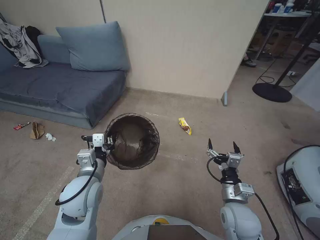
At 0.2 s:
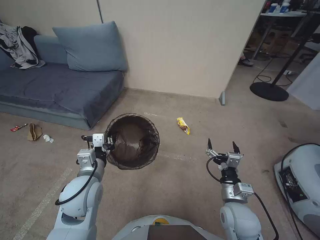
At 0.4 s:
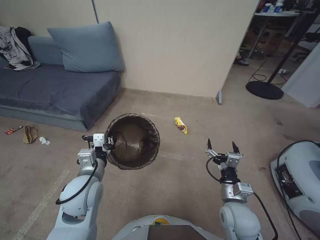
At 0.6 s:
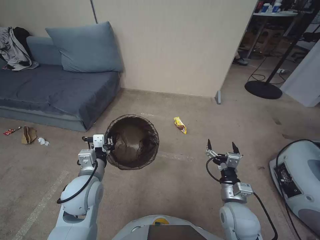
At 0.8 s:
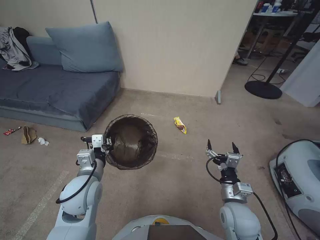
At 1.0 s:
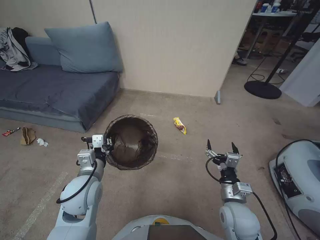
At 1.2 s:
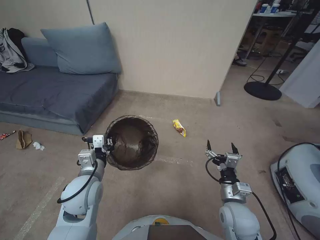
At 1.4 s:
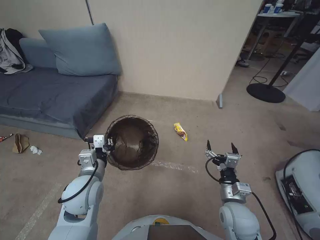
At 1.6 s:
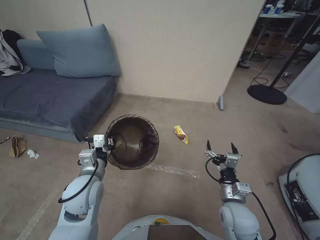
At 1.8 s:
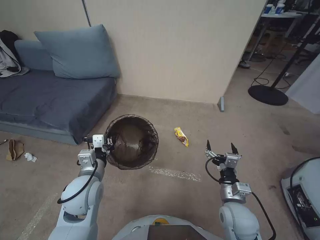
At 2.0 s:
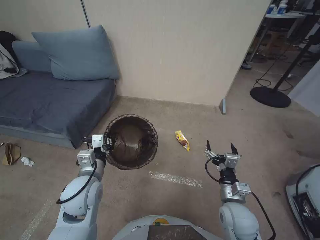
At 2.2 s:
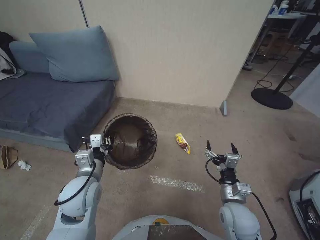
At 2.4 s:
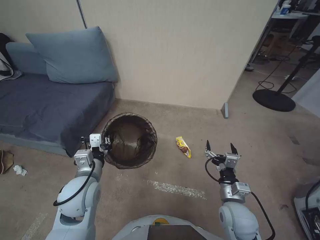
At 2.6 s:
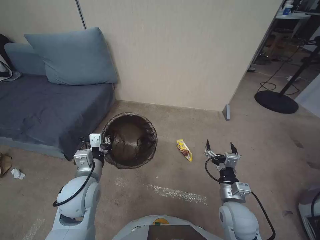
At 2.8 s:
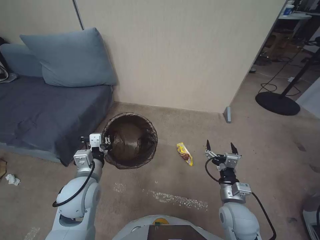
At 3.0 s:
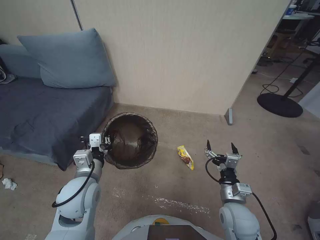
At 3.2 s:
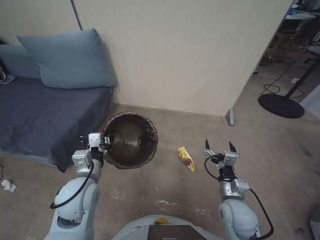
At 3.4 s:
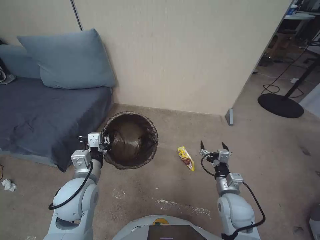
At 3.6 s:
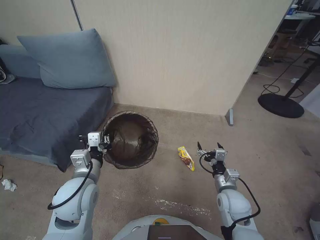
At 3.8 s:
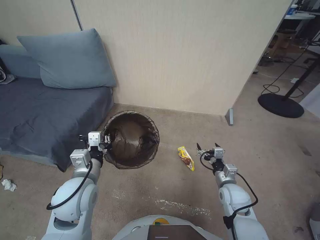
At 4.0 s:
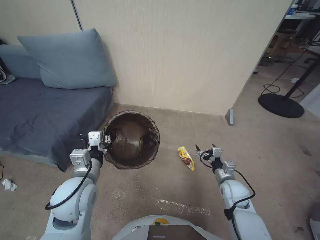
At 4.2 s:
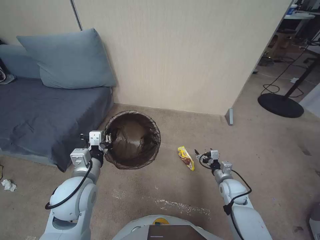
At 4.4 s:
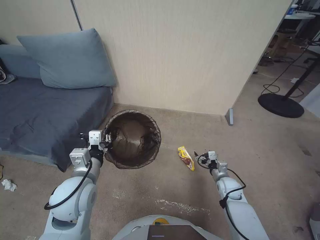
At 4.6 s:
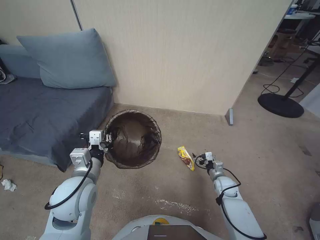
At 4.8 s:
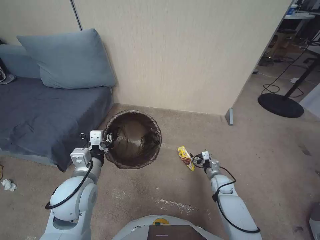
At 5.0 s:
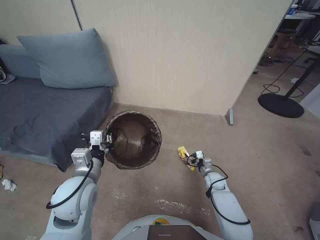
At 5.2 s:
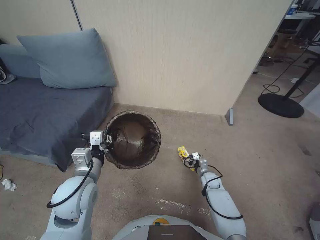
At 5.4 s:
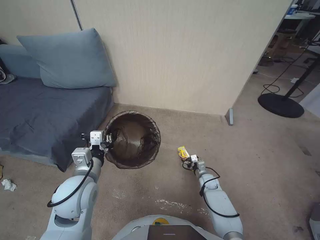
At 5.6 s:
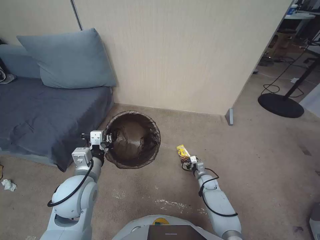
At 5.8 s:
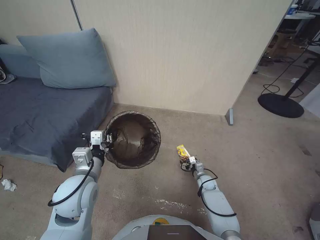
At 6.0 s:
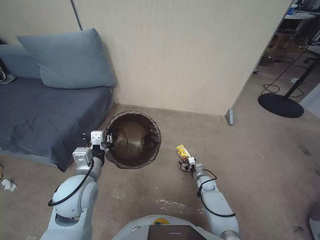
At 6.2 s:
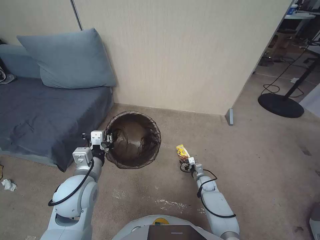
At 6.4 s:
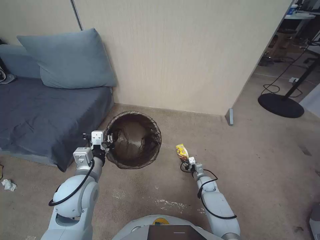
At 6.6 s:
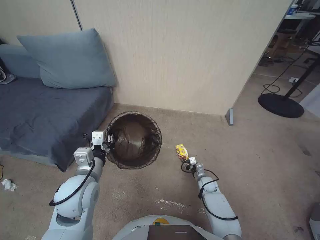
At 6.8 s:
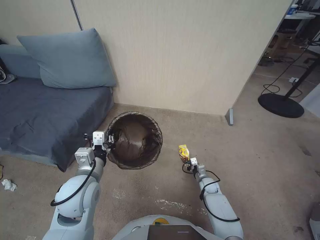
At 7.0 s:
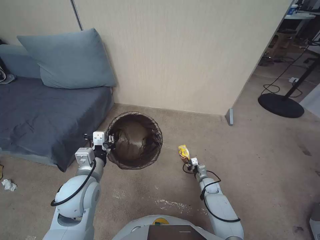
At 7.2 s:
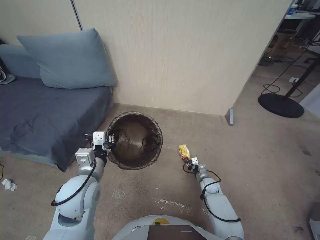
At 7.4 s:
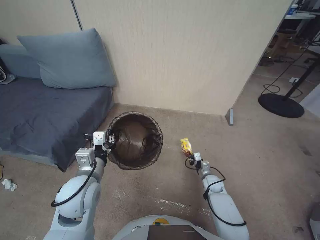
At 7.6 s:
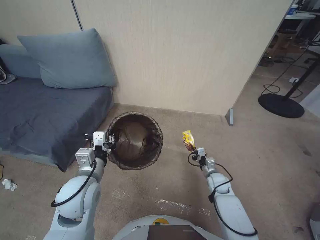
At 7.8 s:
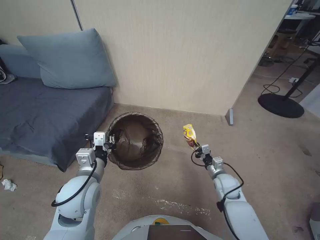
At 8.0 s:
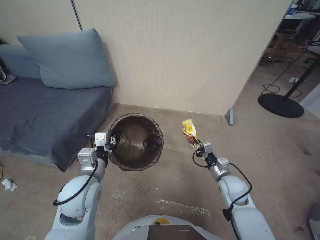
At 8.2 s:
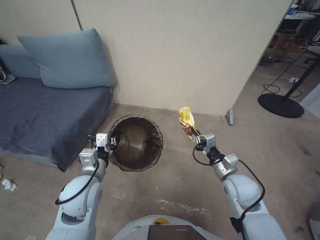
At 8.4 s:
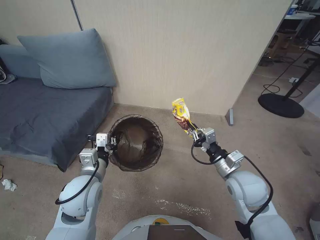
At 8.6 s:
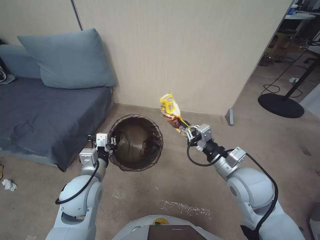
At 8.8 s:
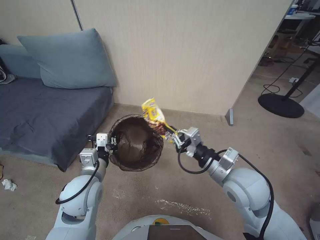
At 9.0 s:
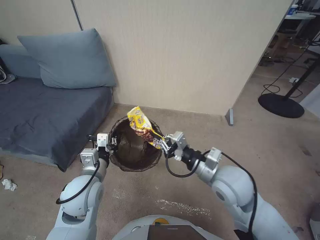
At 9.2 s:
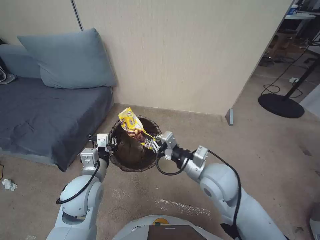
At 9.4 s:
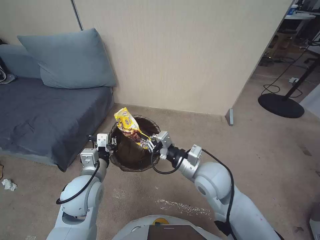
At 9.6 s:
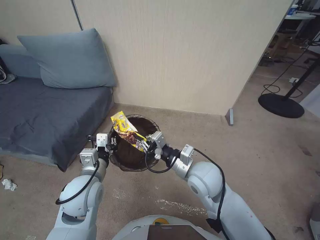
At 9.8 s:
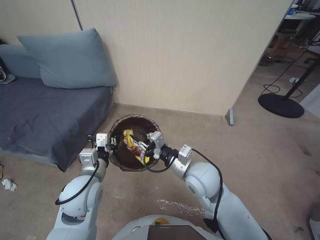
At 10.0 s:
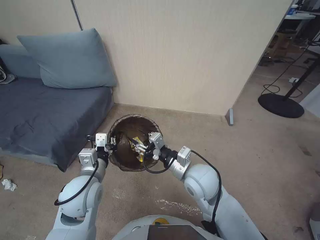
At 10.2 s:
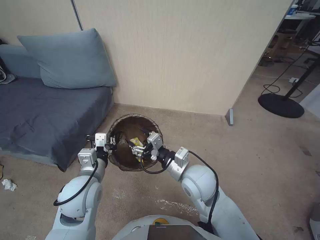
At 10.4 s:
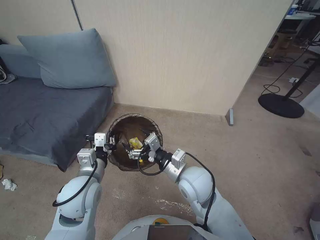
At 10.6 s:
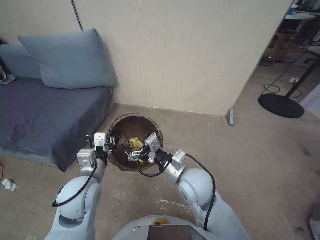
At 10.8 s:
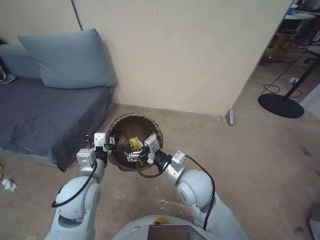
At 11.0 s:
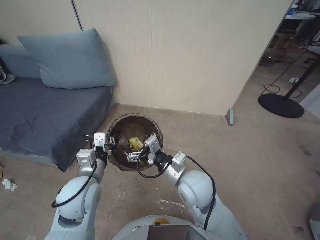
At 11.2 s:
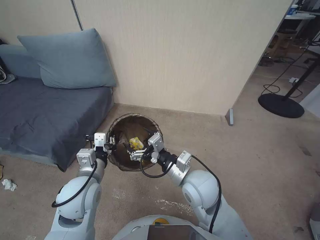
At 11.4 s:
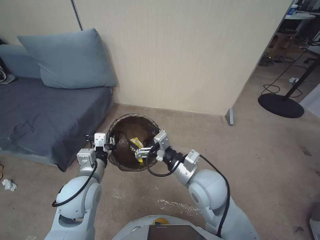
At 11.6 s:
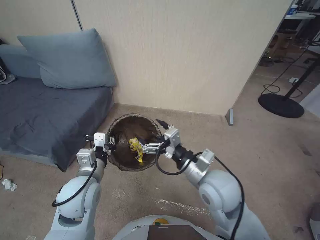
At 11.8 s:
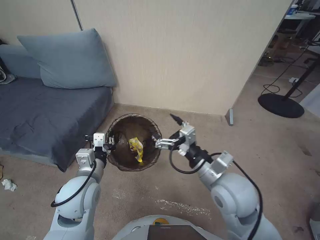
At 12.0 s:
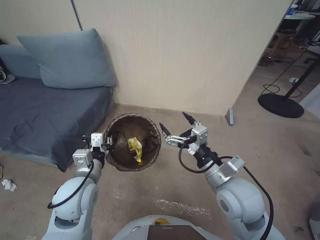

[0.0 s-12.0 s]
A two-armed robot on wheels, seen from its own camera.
Task of the whole recording: Pick up the trash bin, then pick up the garbage from the floor and place it into the trash bin.
0.0 to 1.6 s: The grippers stay close to where they were, moving slightly.
3.0 to 4.4 s: The right gripper is displaced downward, forward and to the right by some 20 cm.
4.4 to 6.0 s: The right gripper shifts some 15 cm downward, to the left and forward.
6.0 to 7.6 s: The right gripper moves upward, roughly 5 cm, and closes its fingers.
7.6 to 9.0 s: The right gripper shifts approximately 30 cm upward.
9.0 to 10.4 s: The right gripper heads to the left, covering roughly 10 cm, and opens its fingers.
10.4 to 12.0 s: The right gripper moves to the right, approximately 10 cm.

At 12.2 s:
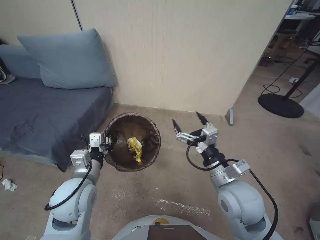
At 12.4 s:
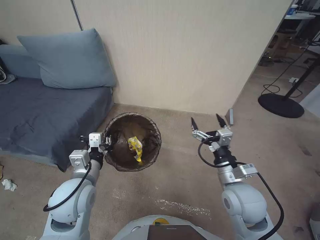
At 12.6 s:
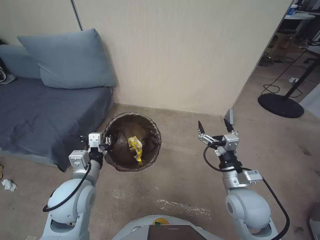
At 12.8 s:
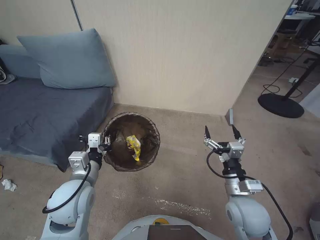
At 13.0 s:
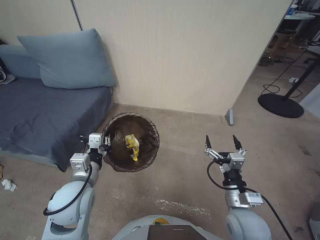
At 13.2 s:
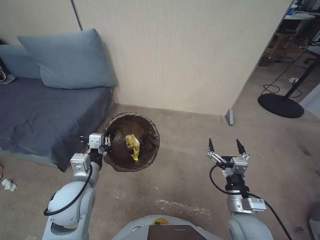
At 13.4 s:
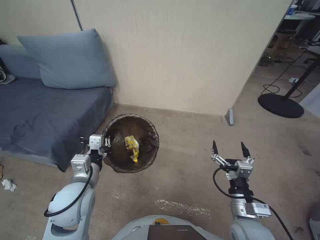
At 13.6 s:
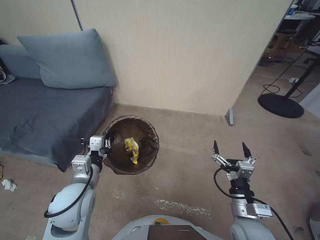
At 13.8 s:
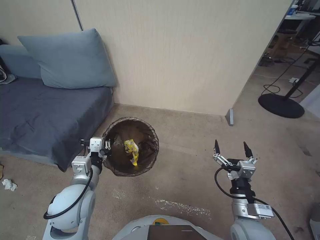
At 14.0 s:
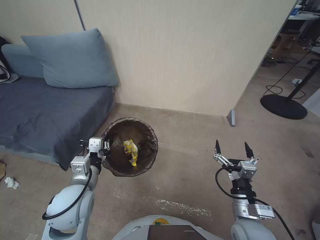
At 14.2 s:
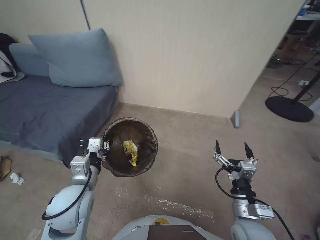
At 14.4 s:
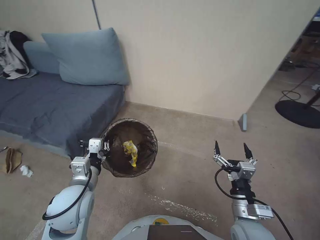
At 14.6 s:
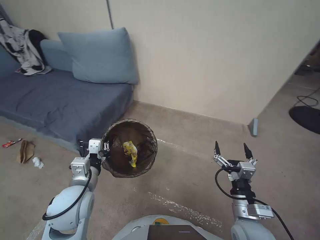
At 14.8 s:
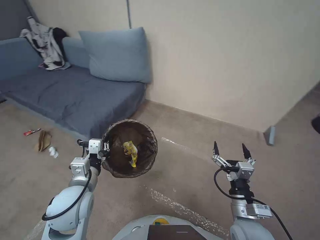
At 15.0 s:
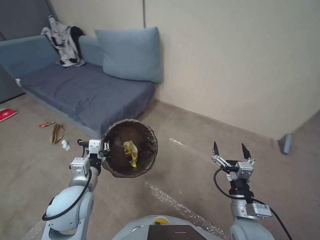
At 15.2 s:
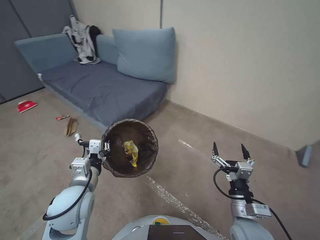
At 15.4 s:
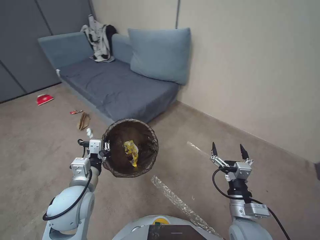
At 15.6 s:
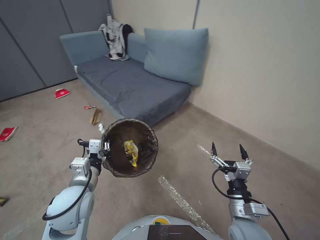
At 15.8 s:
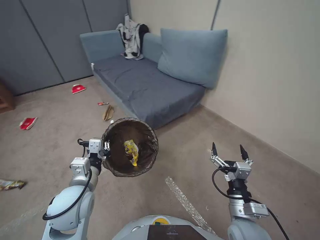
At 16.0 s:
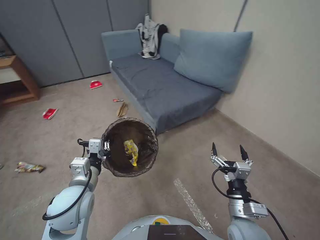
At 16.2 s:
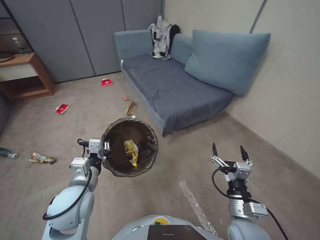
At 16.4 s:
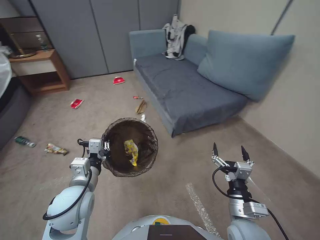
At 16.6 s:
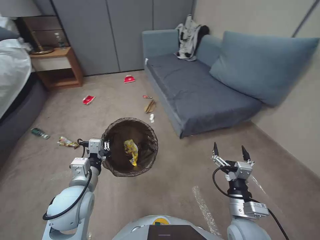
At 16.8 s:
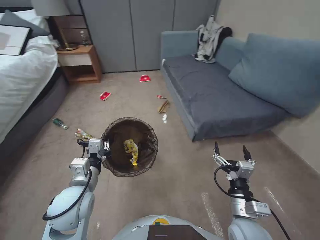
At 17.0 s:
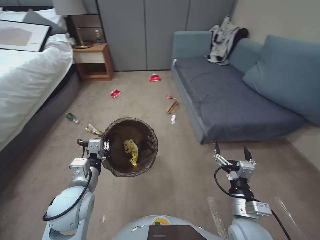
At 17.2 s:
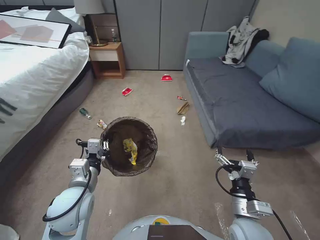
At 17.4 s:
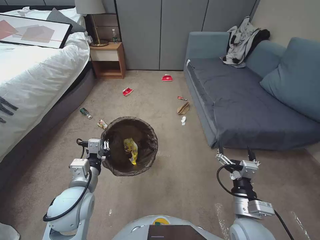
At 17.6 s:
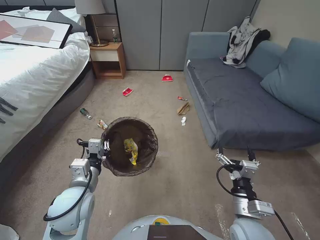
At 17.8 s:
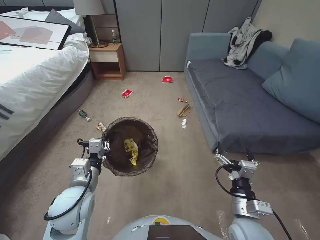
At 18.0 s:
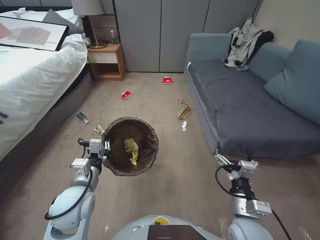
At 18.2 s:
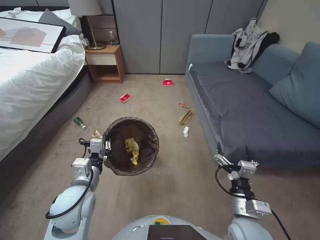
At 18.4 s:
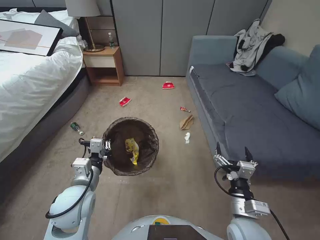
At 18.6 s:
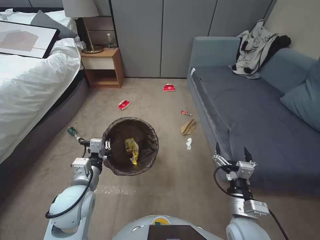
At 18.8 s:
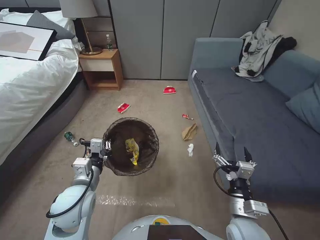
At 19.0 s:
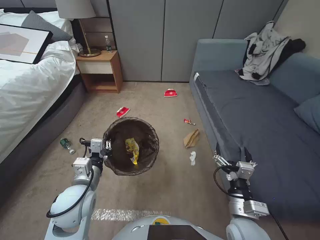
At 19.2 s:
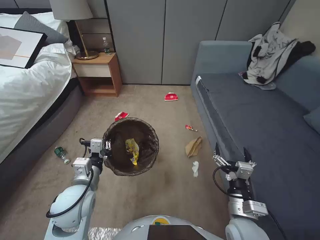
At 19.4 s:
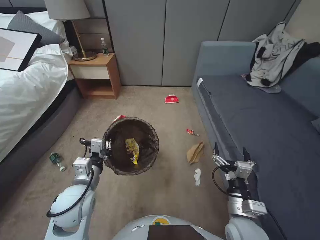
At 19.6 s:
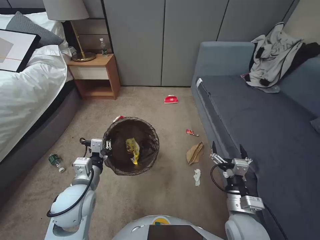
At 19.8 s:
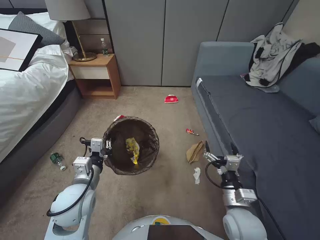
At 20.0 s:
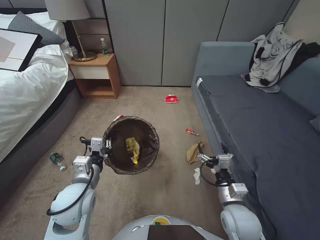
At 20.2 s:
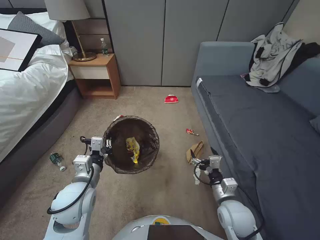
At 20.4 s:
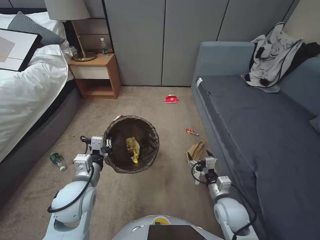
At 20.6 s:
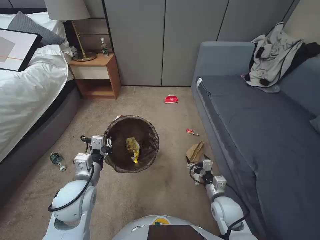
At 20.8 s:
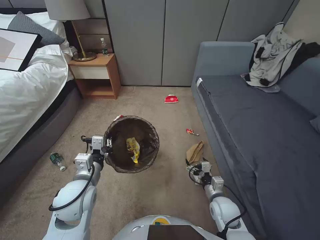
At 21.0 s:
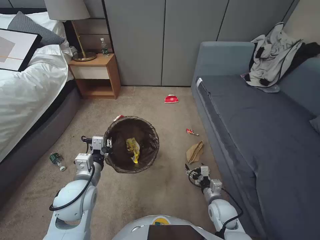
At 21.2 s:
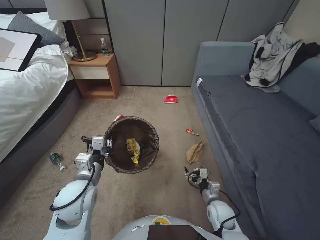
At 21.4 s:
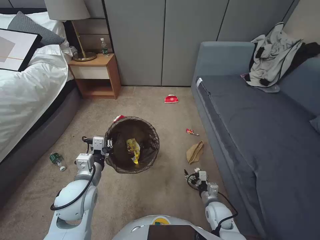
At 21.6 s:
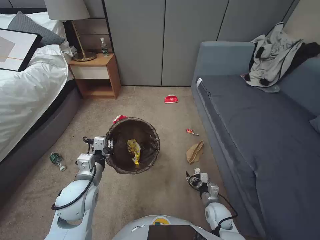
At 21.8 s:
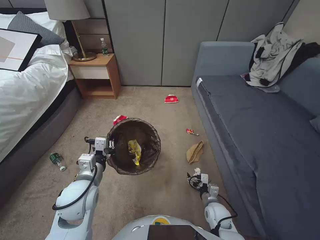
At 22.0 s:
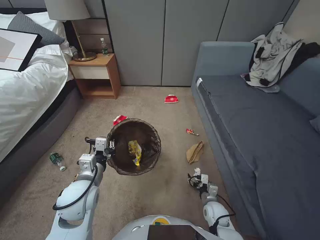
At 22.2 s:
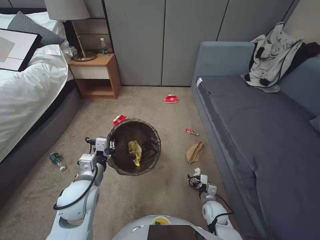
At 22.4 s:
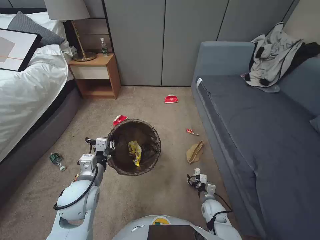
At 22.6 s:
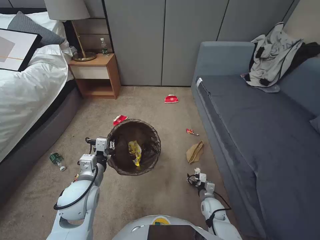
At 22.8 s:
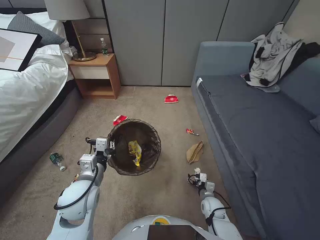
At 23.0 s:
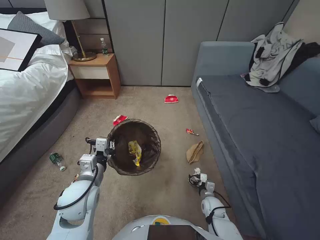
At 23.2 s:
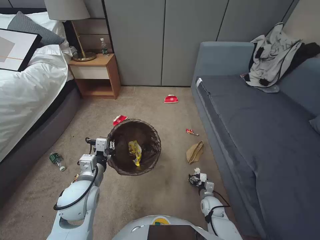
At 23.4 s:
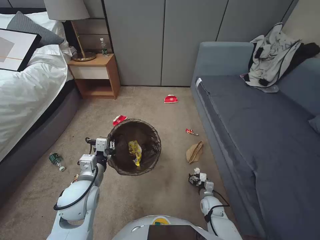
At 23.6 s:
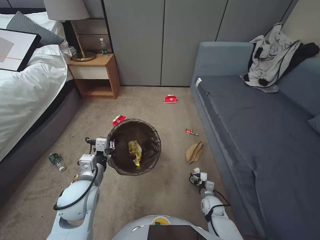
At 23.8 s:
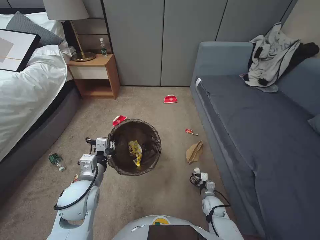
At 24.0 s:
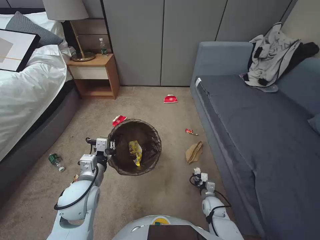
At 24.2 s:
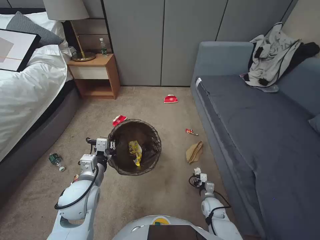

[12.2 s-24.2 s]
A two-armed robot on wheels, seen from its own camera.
Task of the whole recording: Pick up the trash bin, then pick up the garbage from the floor and place it into the trash bin.
12.2 to 13.8 s: The right gripper shifts about 15 cm downward, backward and to the right.
19.8 to 21.2 s: The right gripper travels downward by some 15 cm.
21.2 to 22.6 s: The right gripper travels downward by about 10 cm.
22.6 to 24.2 s: The right gripper closes up.
